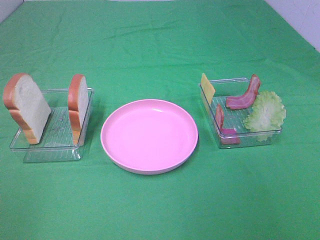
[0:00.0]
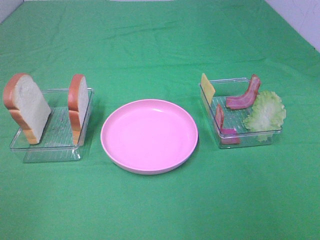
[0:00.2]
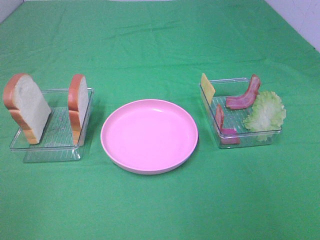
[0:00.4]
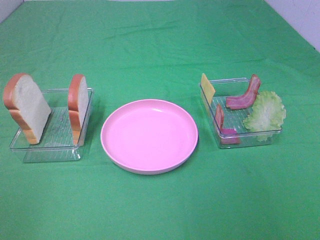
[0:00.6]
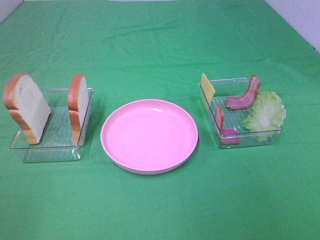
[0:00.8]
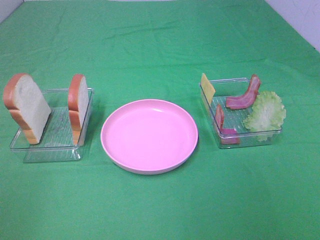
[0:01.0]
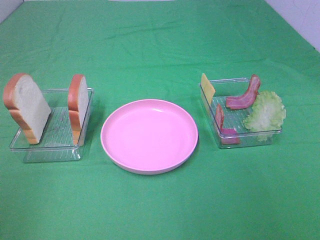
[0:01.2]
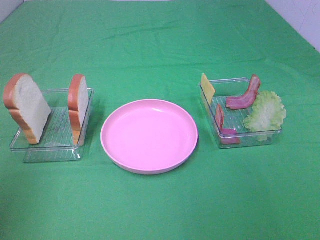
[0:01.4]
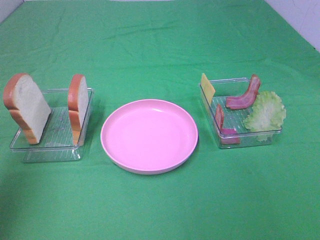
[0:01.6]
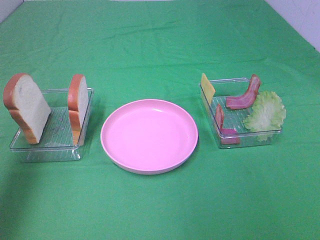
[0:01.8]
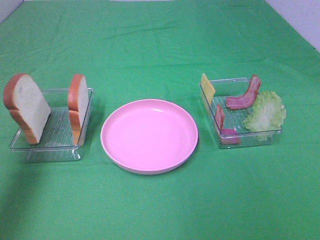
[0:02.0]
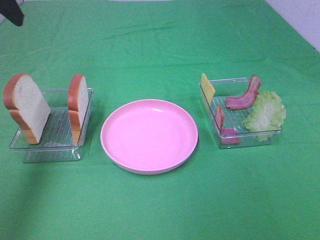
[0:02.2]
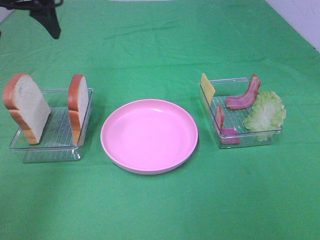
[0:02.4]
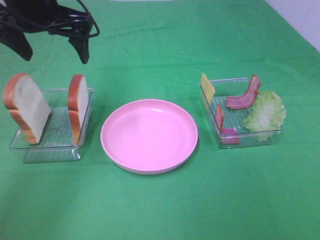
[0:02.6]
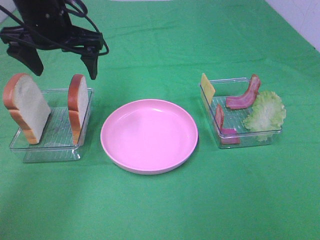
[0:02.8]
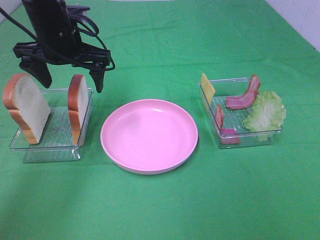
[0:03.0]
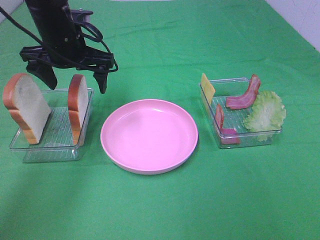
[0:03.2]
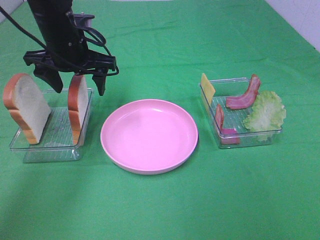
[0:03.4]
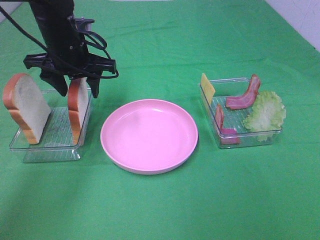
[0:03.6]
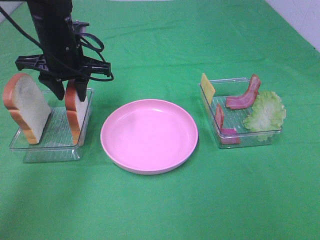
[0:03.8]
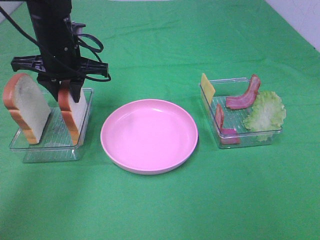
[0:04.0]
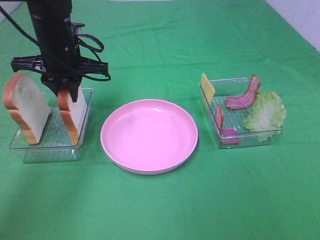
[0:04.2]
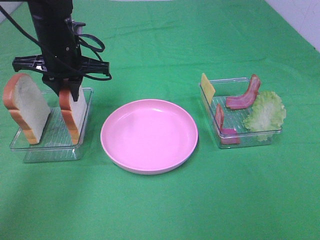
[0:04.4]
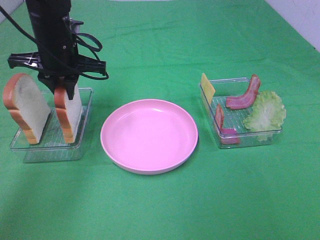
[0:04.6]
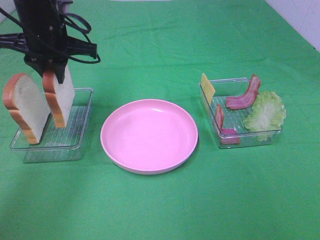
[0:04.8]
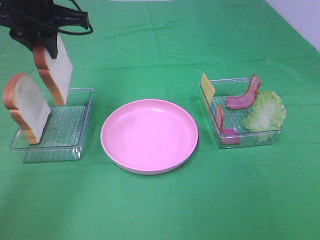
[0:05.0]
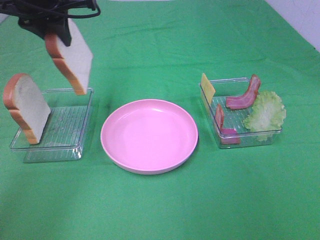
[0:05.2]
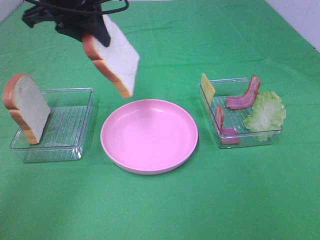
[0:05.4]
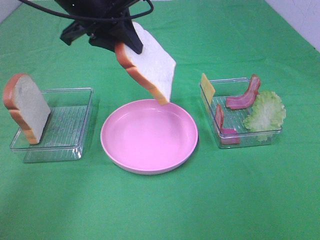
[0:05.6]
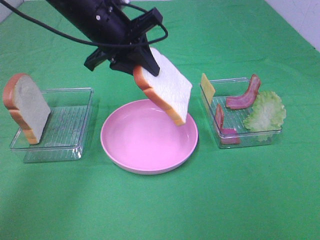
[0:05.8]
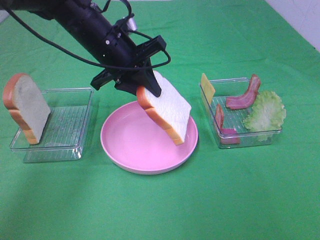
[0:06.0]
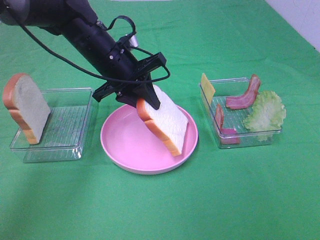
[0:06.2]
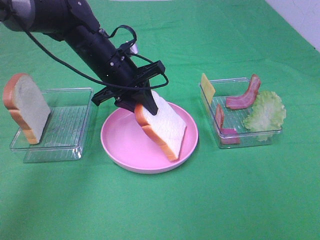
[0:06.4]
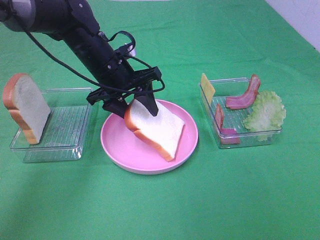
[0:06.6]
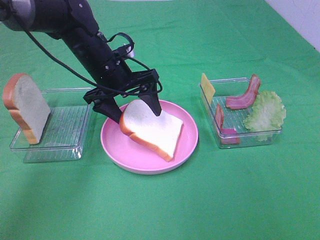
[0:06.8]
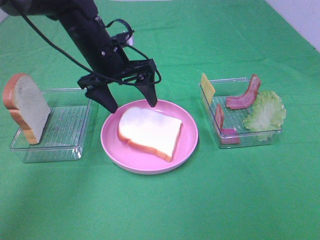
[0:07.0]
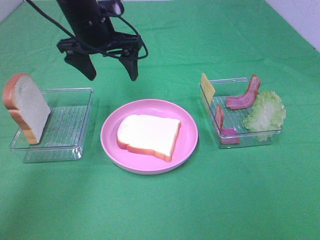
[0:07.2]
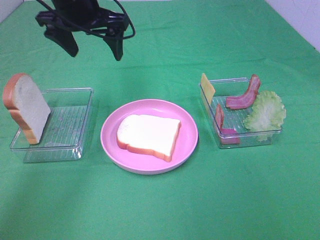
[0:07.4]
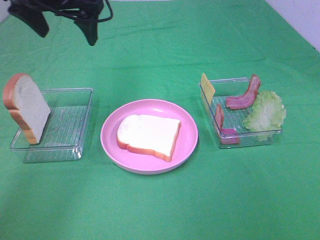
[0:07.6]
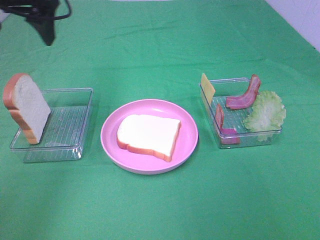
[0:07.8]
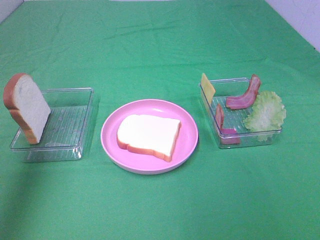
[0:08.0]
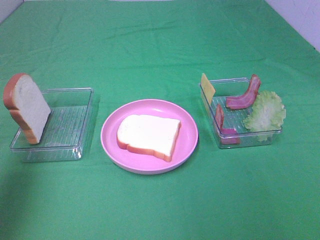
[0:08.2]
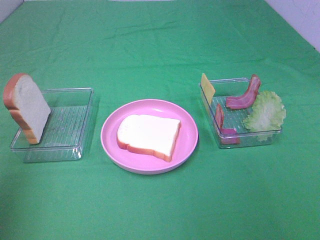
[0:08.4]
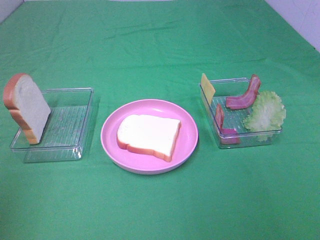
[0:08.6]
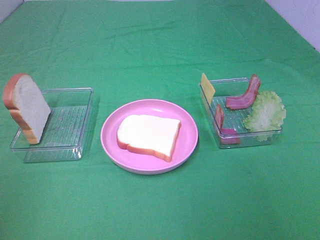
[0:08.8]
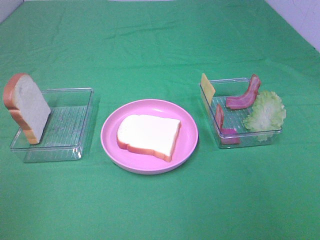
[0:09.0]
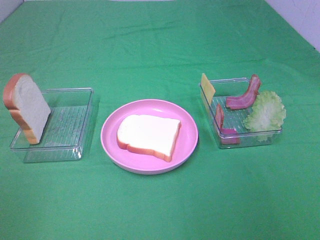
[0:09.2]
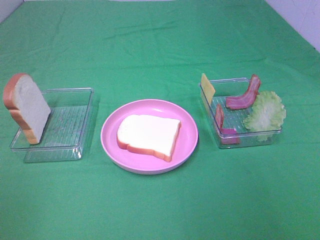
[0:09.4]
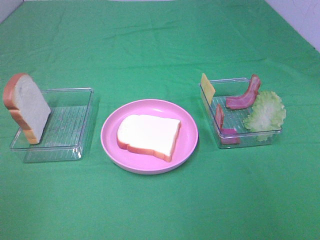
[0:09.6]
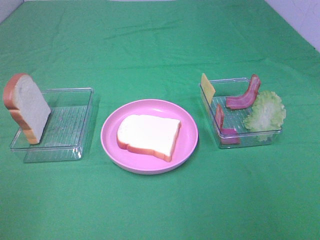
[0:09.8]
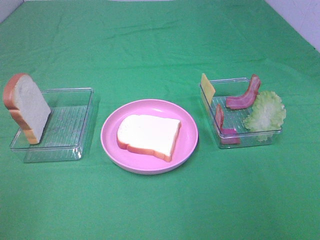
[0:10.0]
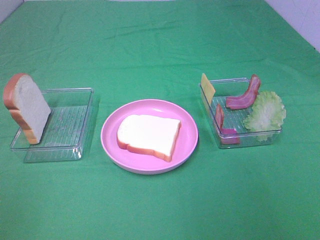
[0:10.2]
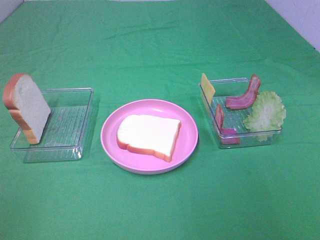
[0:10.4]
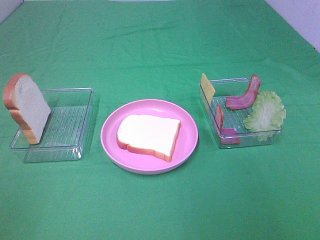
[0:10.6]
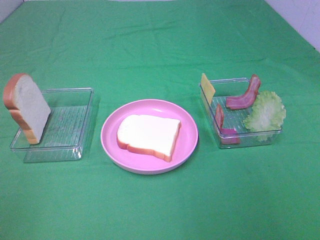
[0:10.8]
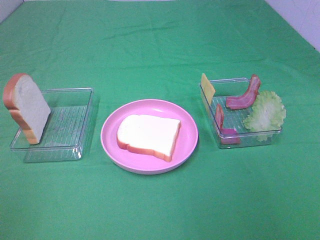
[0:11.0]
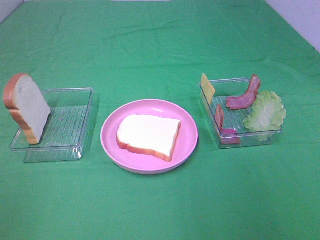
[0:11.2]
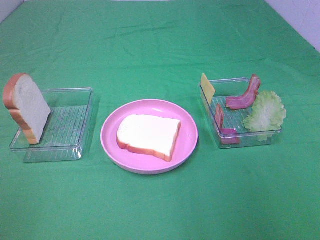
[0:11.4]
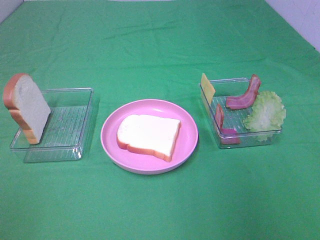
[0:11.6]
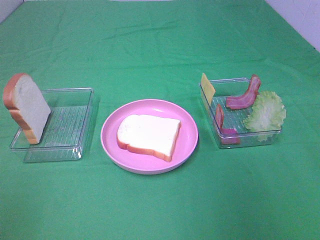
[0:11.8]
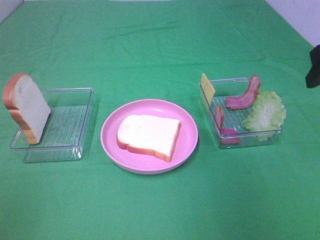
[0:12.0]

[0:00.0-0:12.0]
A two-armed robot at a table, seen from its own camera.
Task of the whole recording: Make sandwiches.
Step, 0:00.0 to 0:04.2: Left hand:grab the bread slice.
Step, 0:04.4 to 0:07.0: Left hand:place the bread slice on the plate.
0:00.0 to 0:01.6: The left gripper goes some 20 cm forward and upward.
0:01.6 to 0:03.0: The left gripper heads forward, to the right and downward, covering some 30 cm.
0:03.0 to 0:04.4: The left gripper closes.
0:04.4 to 0:06.0: The left gripper heads to the right, covering about 5 cm, and travels upward and back again, roughly 10 cm each way.
0:06.0 to 0:07.6: The left gripper travels upward and to the left by roughly 15 cm, and opens its fingers.
0:07.6 to 0:09.0: The left gripper goes about 40 cm backward and to the left.

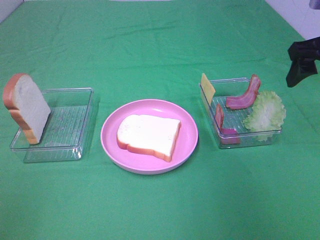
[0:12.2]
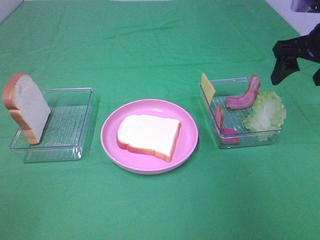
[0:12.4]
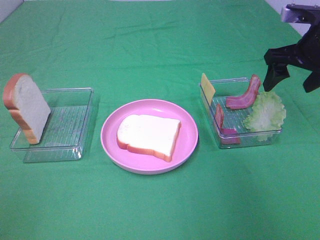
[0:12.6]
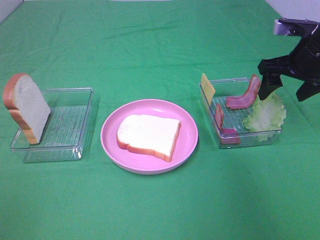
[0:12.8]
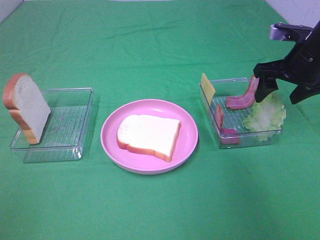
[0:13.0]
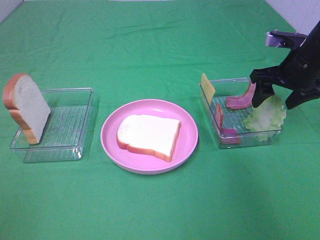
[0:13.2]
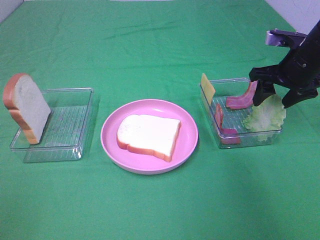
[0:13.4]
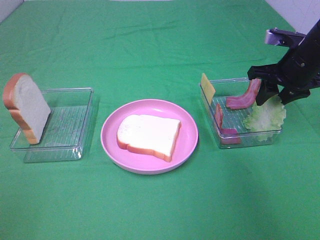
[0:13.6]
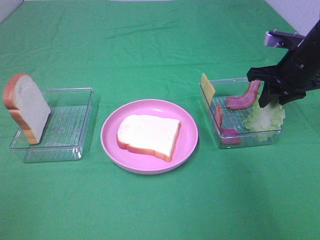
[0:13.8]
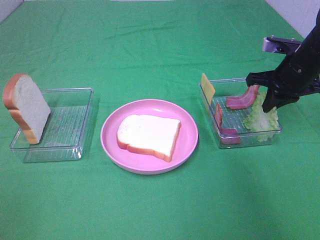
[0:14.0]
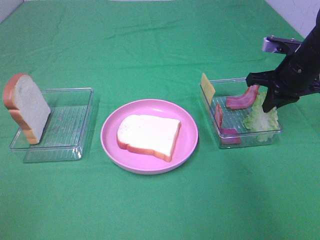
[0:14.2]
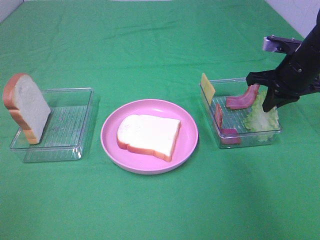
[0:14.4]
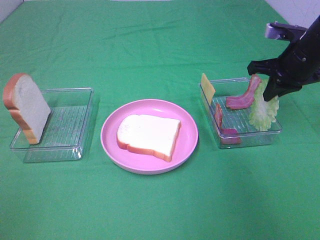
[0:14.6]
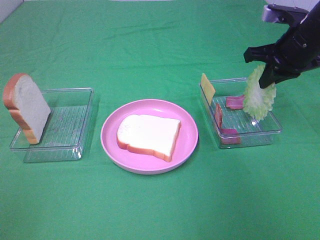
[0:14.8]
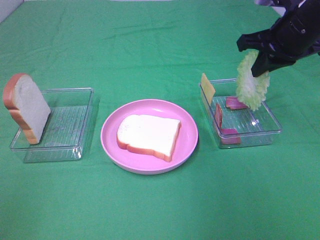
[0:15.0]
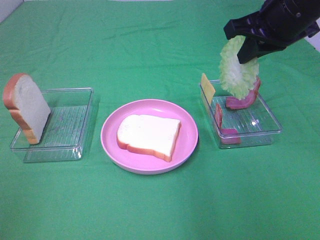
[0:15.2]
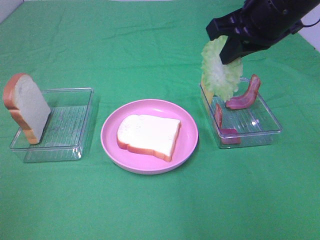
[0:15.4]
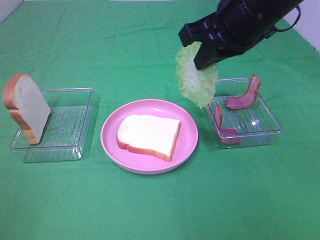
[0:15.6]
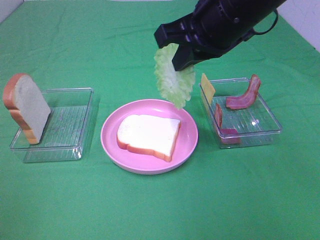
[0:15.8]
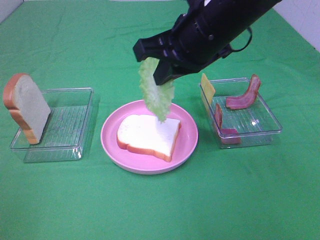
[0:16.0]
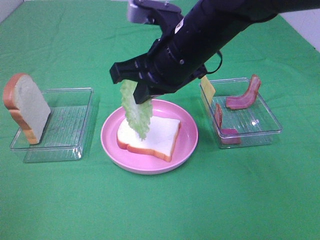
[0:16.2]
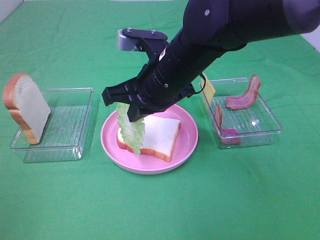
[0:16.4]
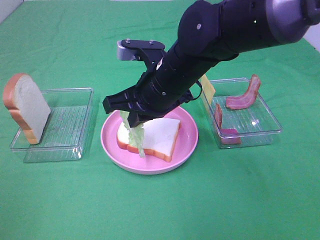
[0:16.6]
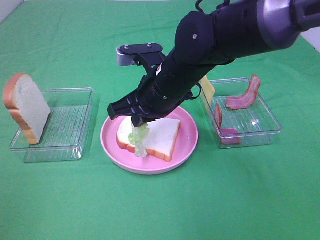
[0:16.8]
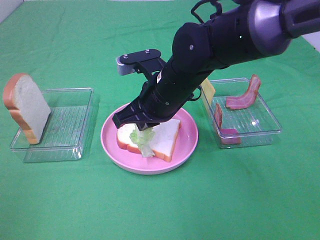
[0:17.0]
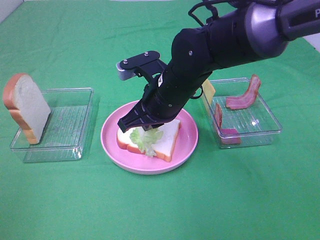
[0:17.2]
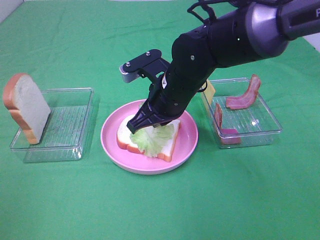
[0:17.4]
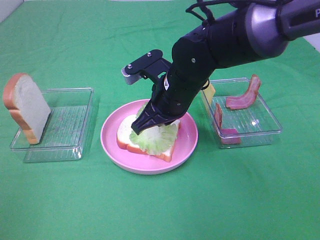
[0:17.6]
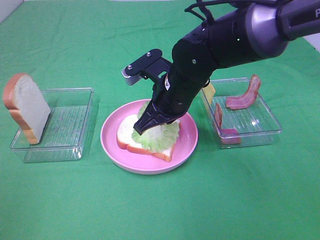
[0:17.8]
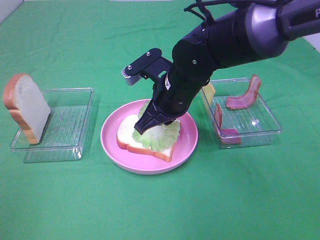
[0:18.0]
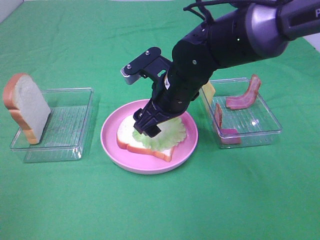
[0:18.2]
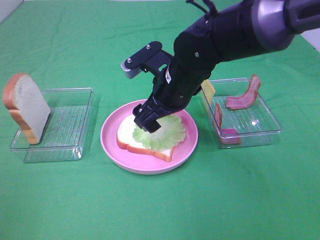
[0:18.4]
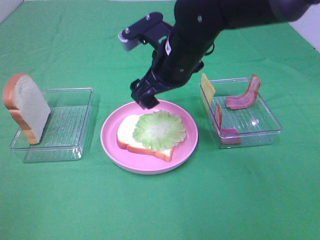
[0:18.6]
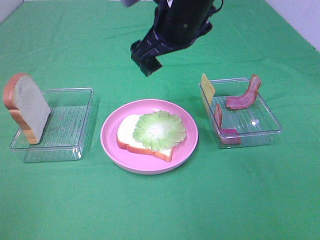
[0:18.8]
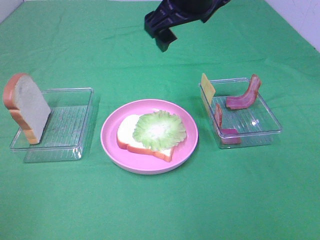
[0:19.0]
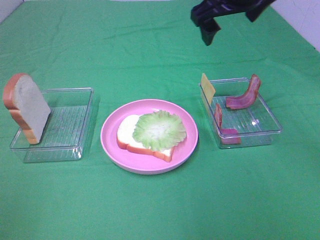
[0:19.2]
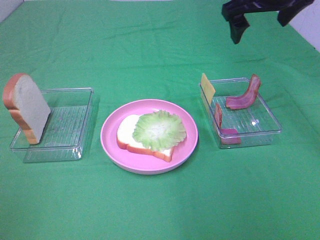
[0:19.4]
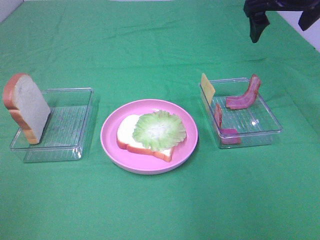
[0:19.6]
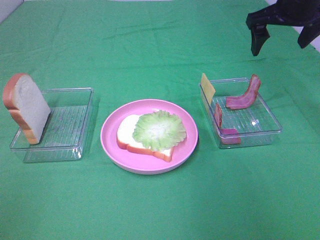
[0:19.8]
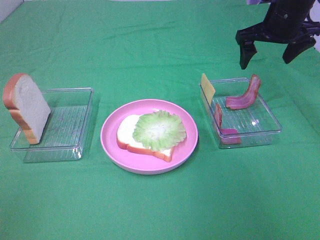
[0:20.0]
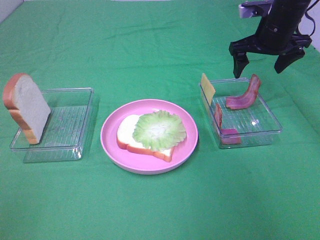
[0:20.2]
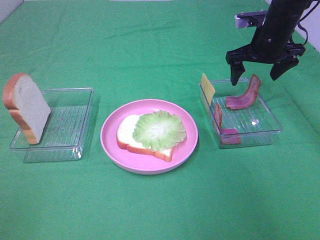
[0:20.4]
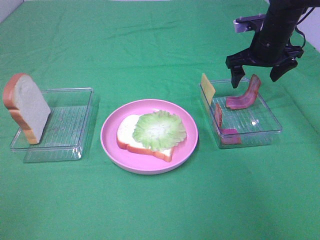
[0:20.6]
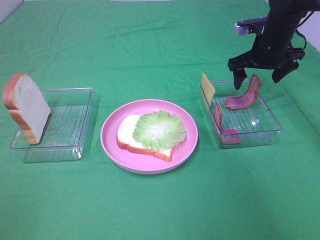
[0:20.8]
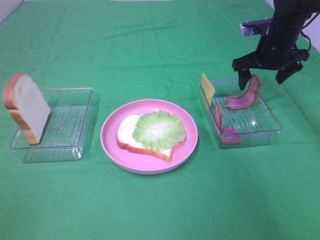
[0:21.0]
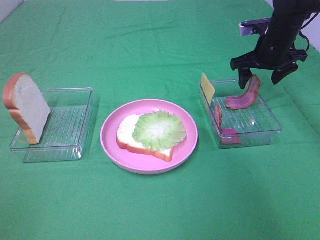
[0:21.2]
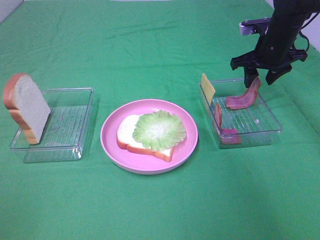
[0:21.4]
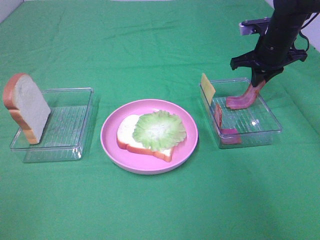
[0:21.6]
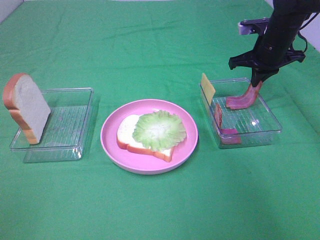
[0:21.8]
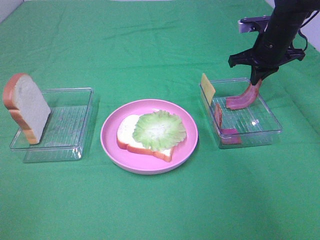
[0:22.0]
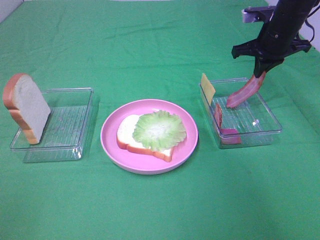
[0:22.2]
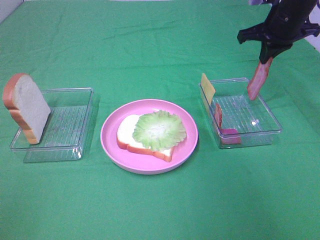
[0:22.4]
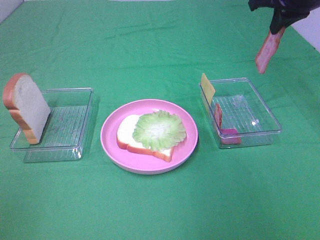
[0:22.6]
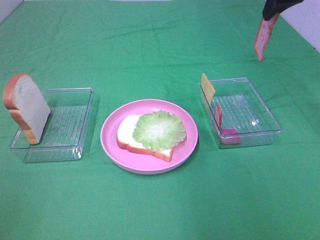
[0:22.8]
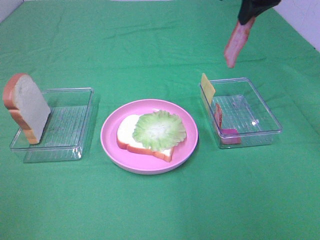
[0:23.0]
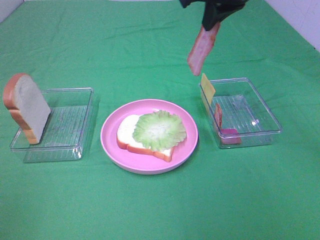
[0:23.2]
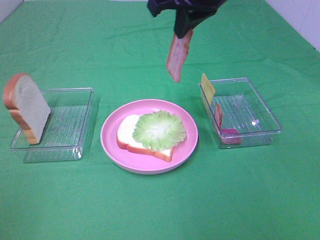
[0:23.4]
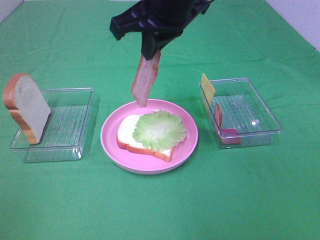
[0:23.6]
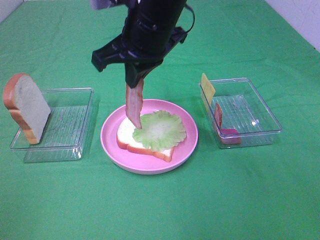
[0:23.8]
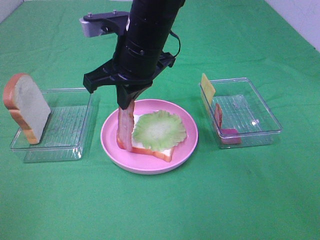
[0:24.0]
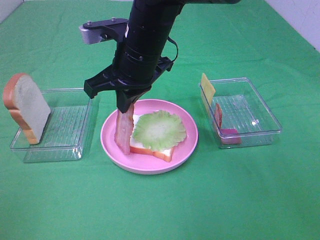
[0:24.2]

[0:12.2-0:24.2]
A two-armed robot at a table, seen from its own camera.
Task of the whole recording: Make sandwiches.
Step, 0:12.2 to 0:14.2: Right hand:grab the lettuce slice.
Step, 0:14.4 to 0:18.2: Right hand:place the lettuce slice on the bread slice.
Step, 0:18.4 to 0:21.8: Right hand:grab the bacon.
0:12.2 to 0:13.8: The right gripper travels downward and forward by about 10 cm, and closes.
0:13.8 to 0:15.2: The right gripper is displaced upward, to the left and backward by about 15 cm.
0:15.2 to 0:16.6: The right gripper shifts roughly 20 cm to the left and downward.
0:16.6 to 0:18.2: The right gripper opens.
0:18.2 to 0:19.8: The right gripper shifts approximately 25 cm to the right, upward and forward.
0:19.8 to 0:21.2: The right gripper is displaced downward by some 10 cm.
0:21.2 to 0:22.6: The right gripper heads upward, covering approximately 15 cm, and closes up.
0:22.6 to 0:24.2: The right gripper is displaced to the left by some 25 cm.
